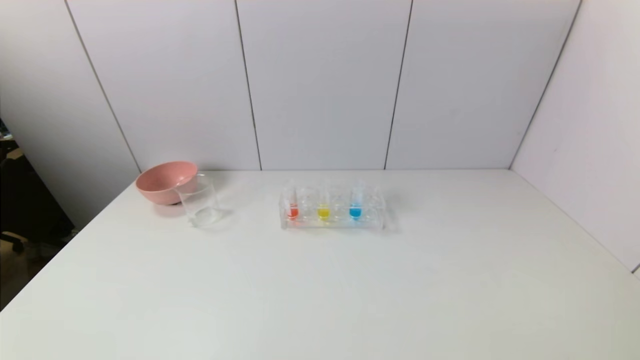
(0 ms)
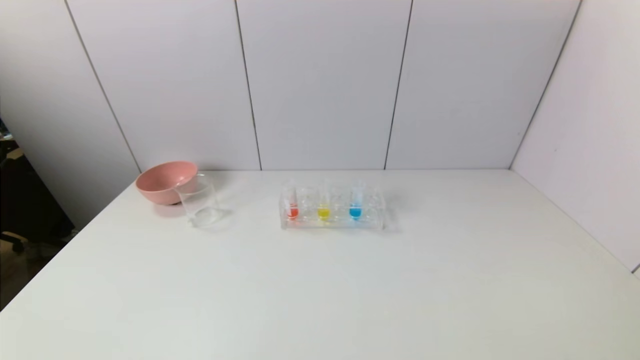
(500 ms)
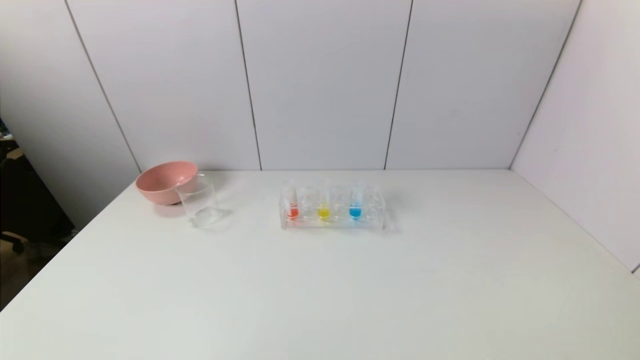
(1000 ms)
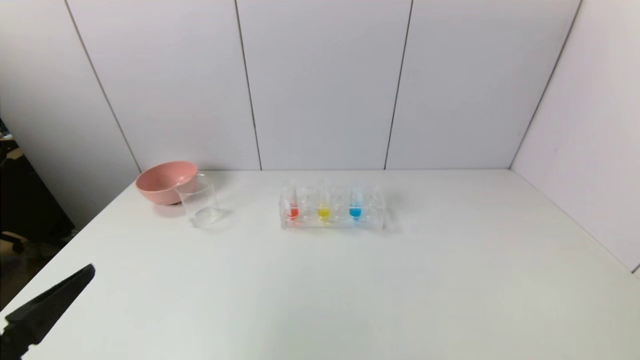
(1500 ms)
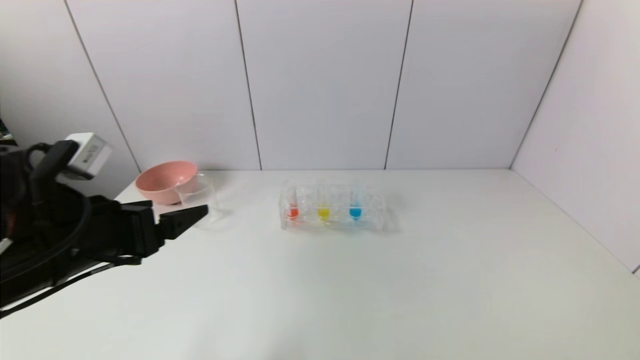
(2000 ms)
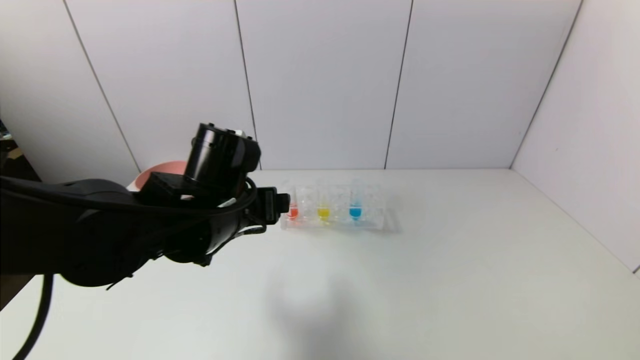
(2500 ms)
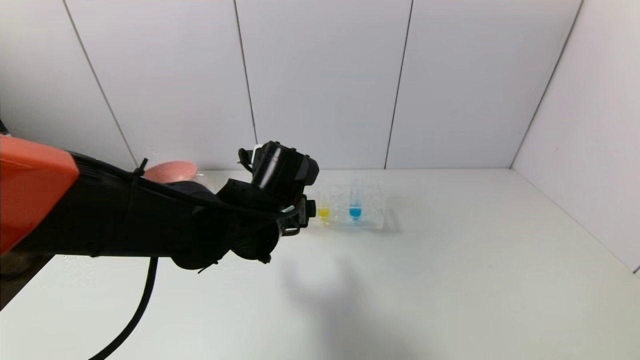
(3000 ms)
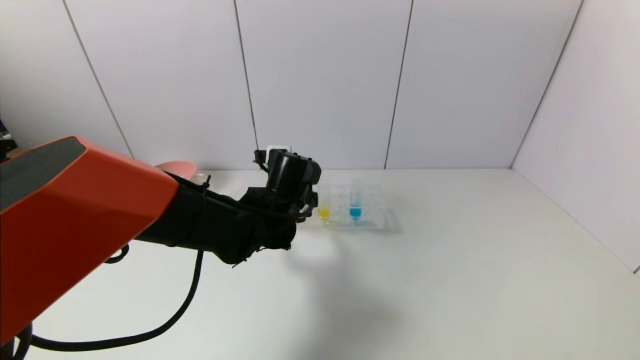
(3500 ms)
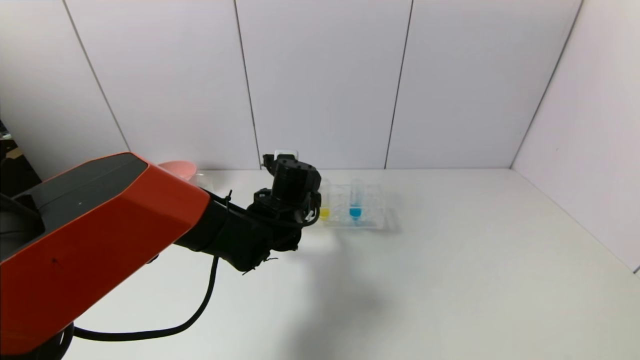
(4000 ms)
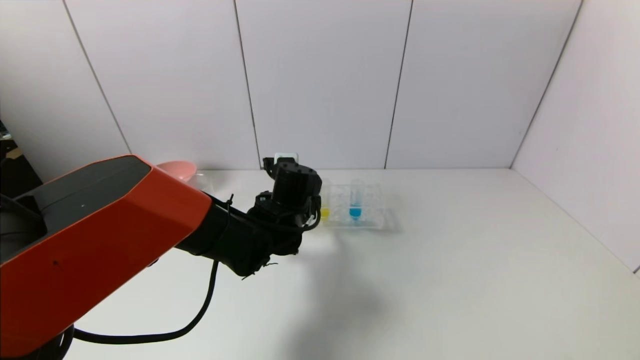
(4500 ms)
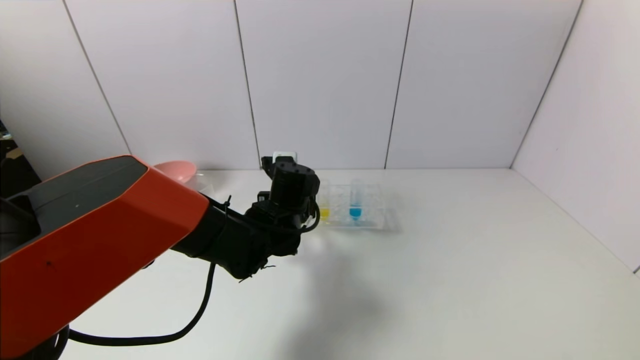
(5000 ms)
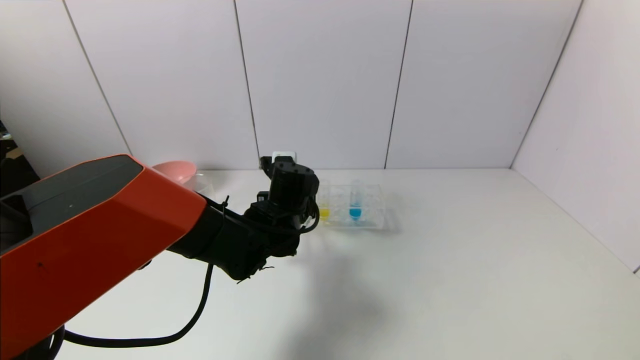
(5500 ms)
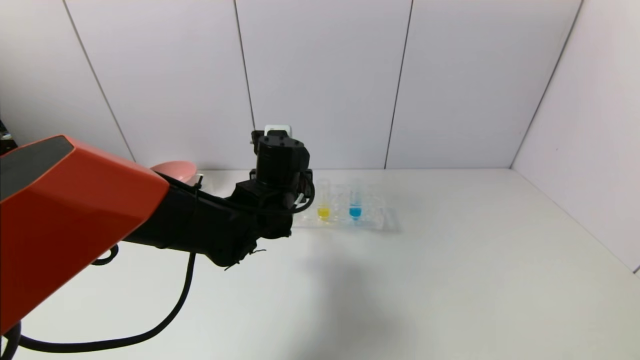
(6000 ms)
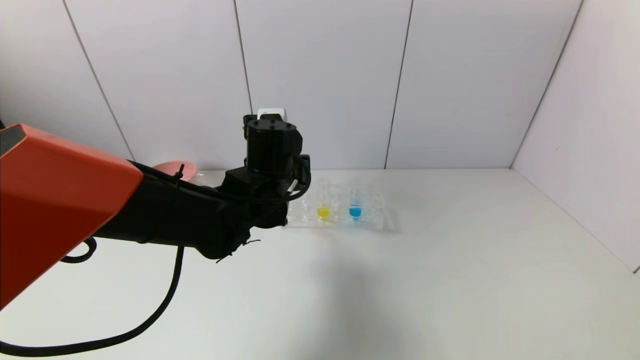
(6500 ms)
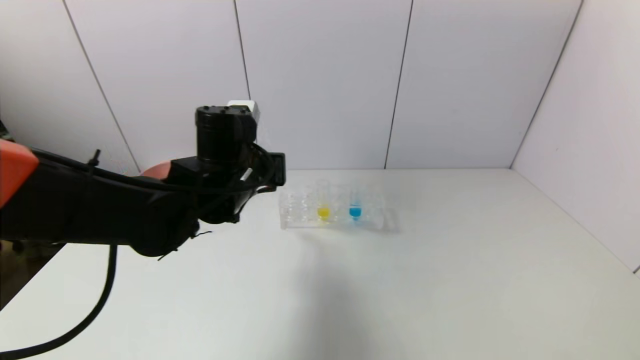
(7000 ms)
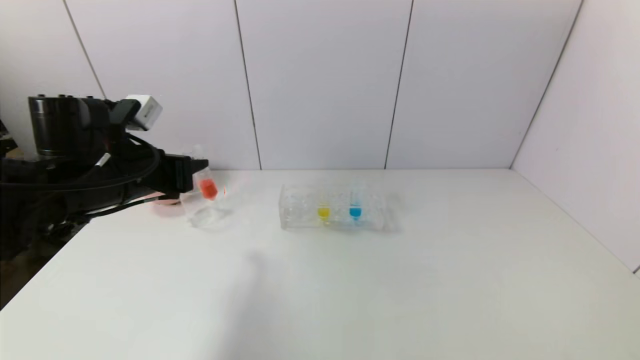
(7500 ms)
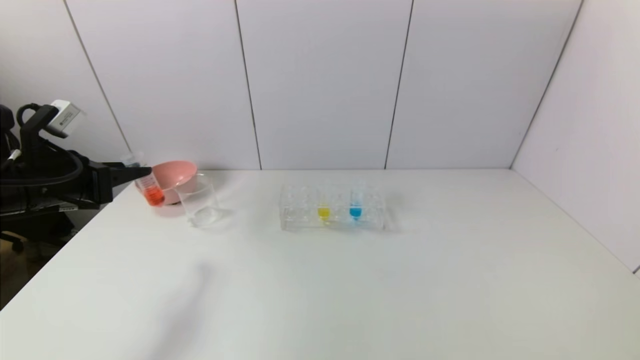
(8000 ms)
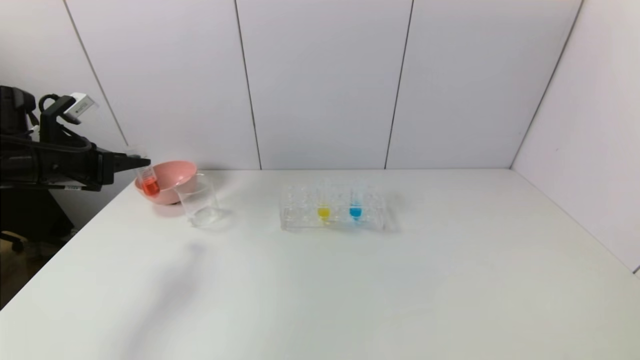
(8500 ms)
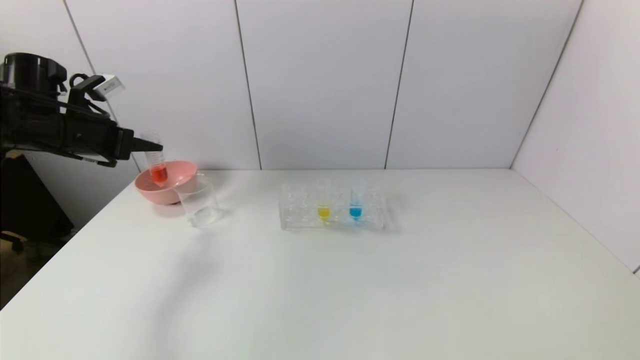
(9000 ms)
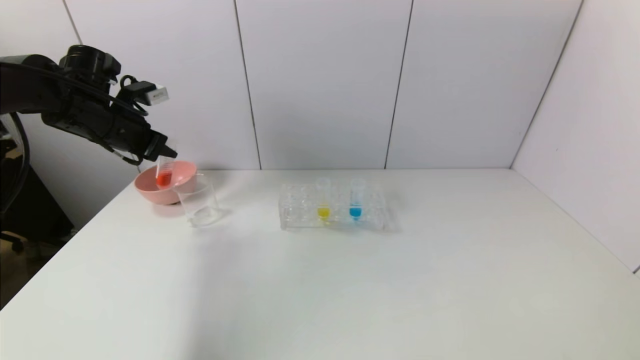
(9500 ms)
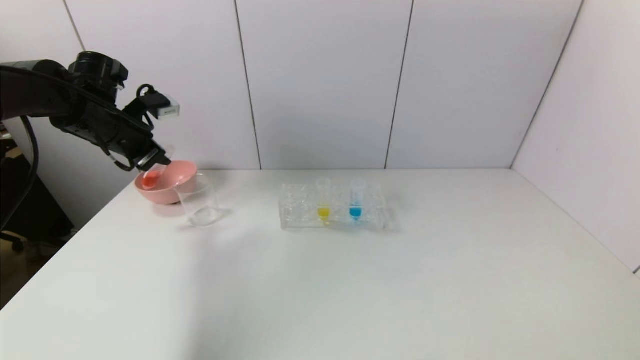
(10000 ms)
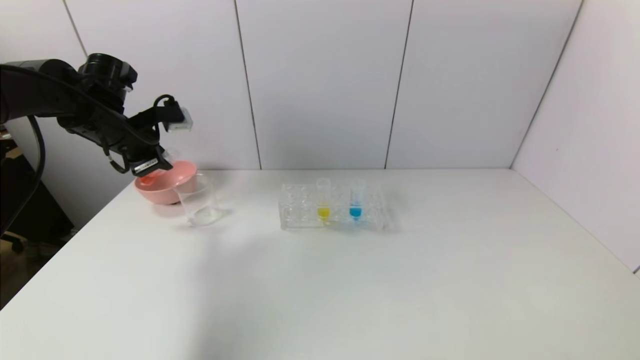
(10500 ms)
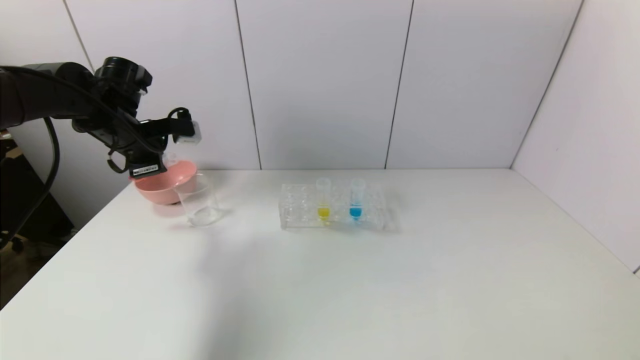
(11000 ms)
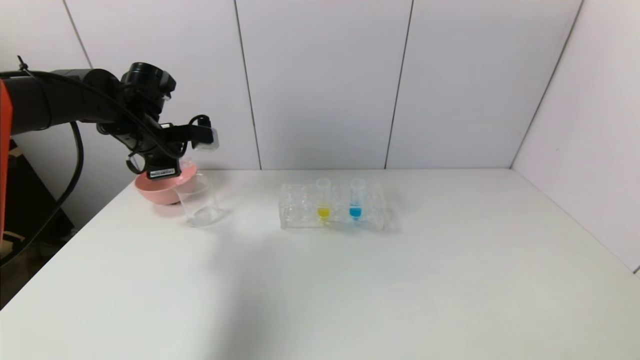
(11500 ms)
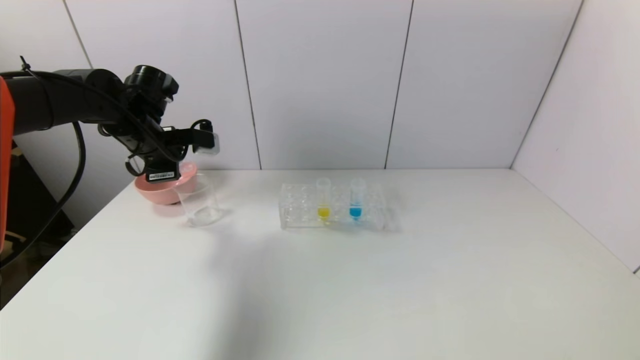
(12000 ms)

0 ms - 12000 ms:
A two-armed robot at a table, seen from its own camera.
Task of the whole recording: pick up the test tube with red pigment and the test tube with blue pigment by grippers and pour them into the container.
Step, 0 ms - 5000 ms: Grasp the red reagent with the left gripper.
0 ms - 2000 ms: The left gripper shifts about 25 cm forward and upward.
2000 ms - 4000 ms: The left gripper is displaced to the right, forward and downward by about 25 cm.
4000 ms - 6000 ms: The left gripper closes its fingers.
6000 ms - 8000 ms: The left gripper moves to the left, approximately 30 cm.
8000 ms - 10000 ms: The left gripper moves forward, about 15 cm.
10000 ms - 12000 ms: The left gripper is displaced to the right by some 5 cm.

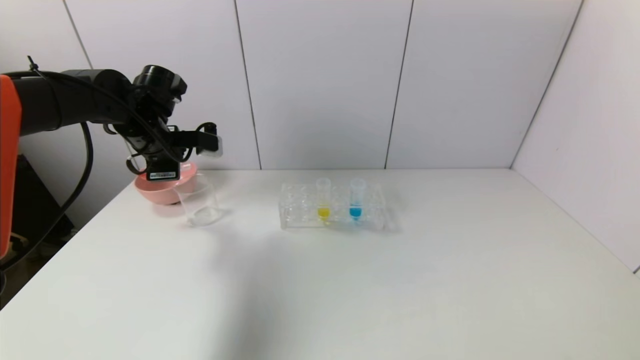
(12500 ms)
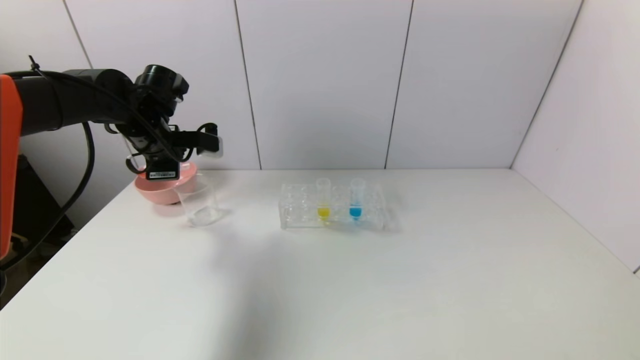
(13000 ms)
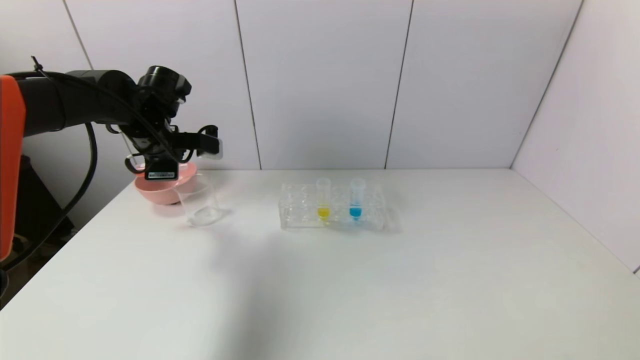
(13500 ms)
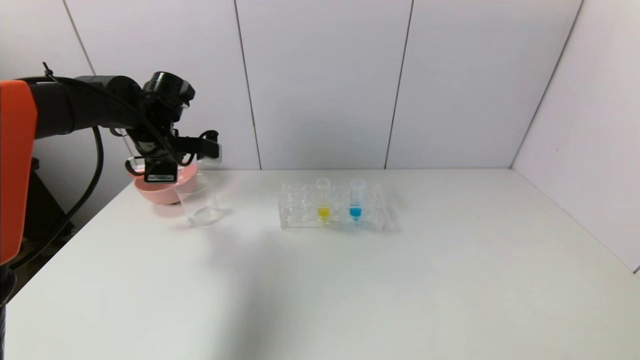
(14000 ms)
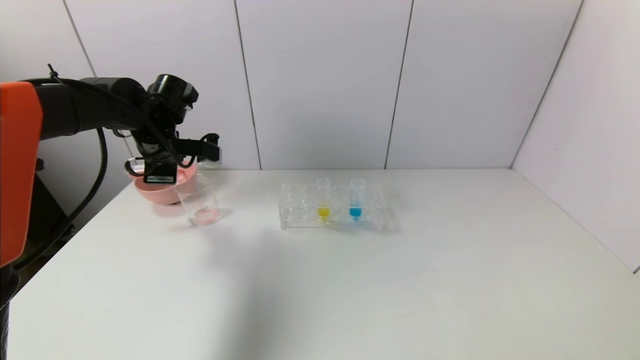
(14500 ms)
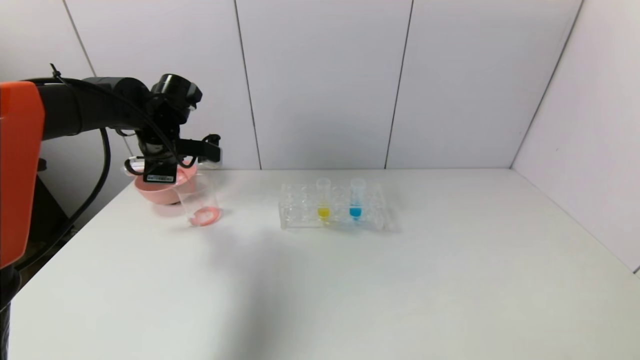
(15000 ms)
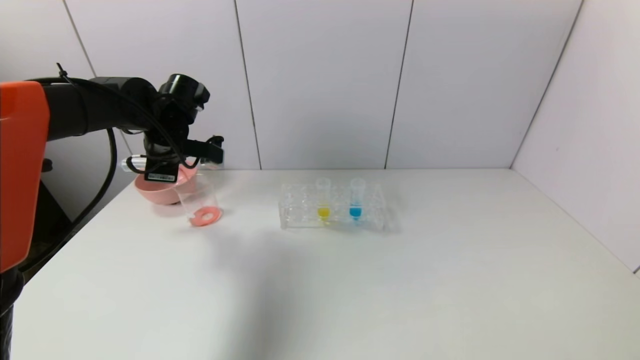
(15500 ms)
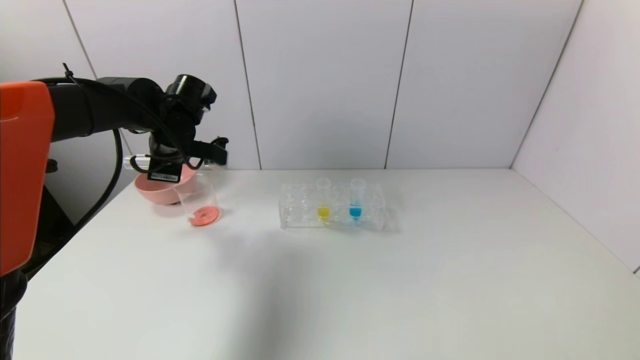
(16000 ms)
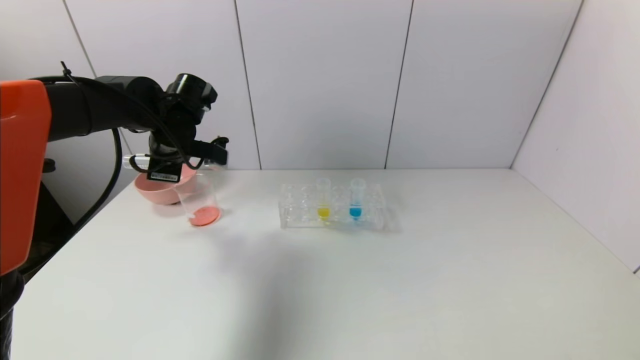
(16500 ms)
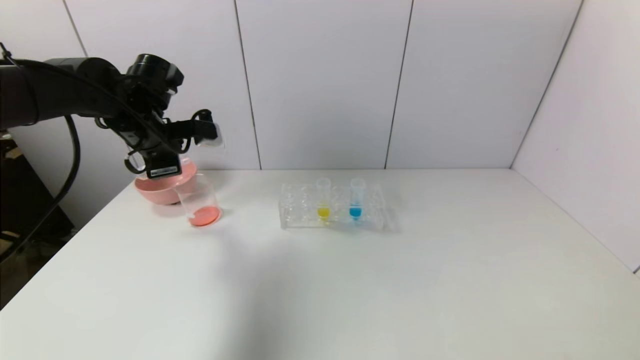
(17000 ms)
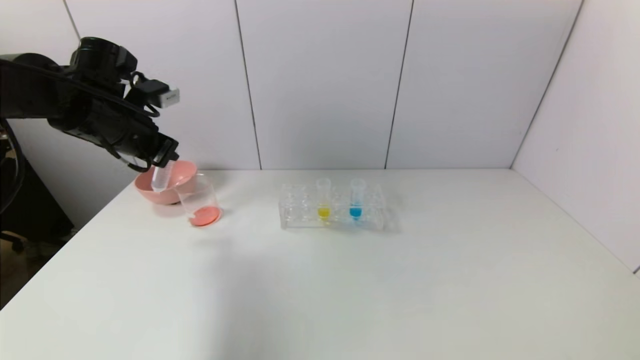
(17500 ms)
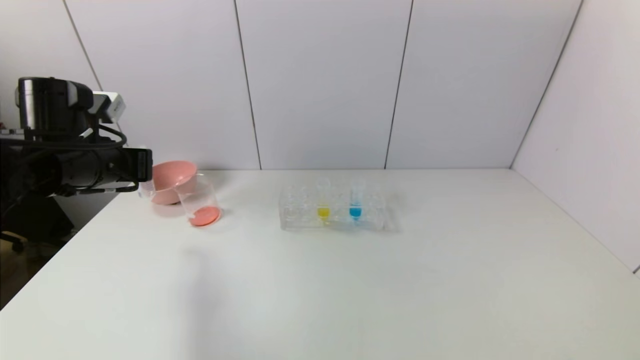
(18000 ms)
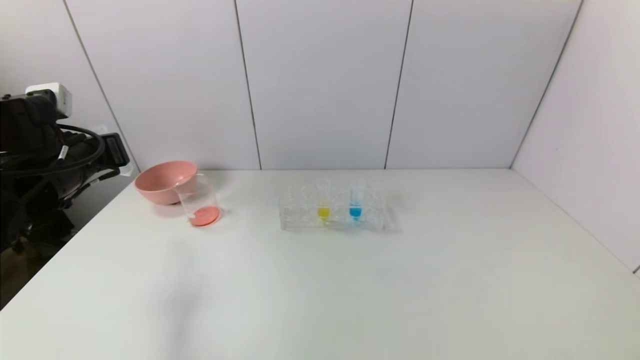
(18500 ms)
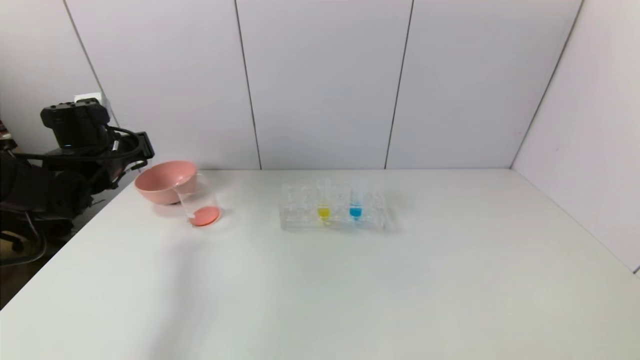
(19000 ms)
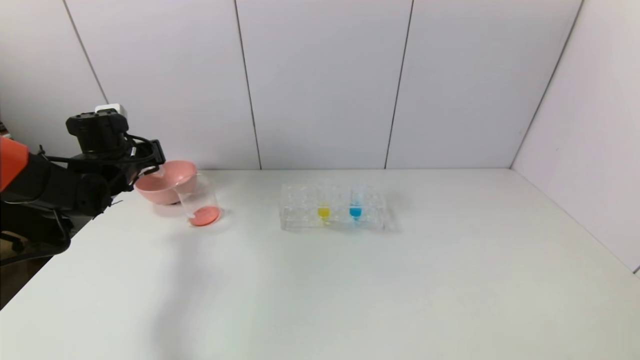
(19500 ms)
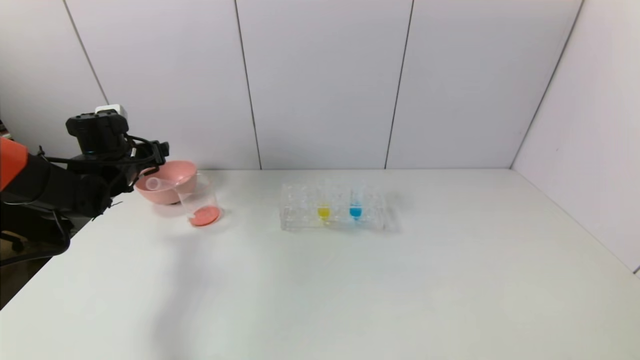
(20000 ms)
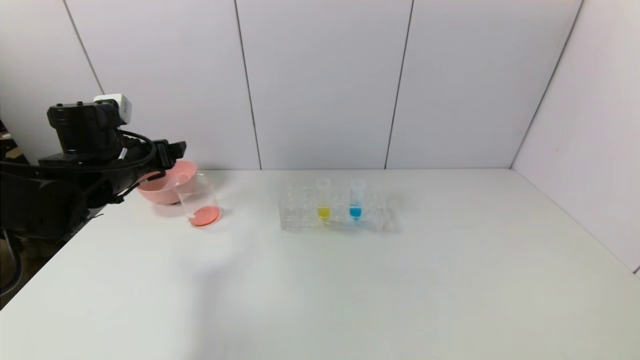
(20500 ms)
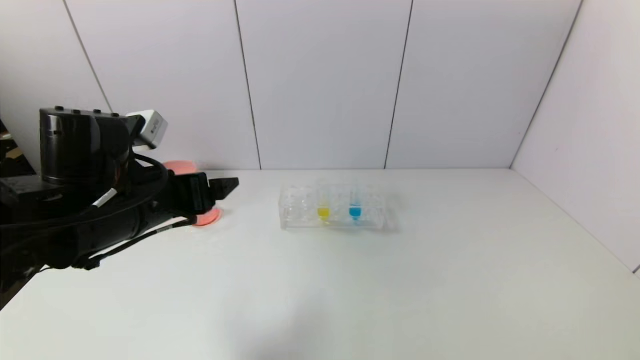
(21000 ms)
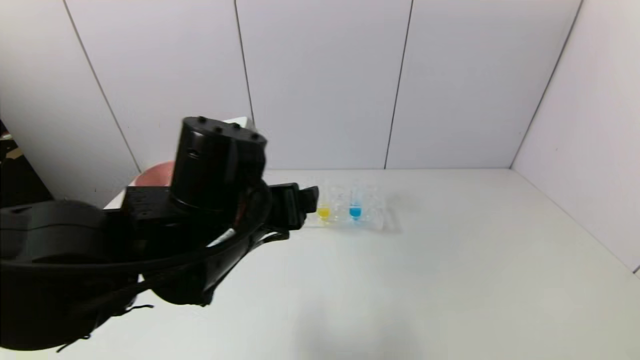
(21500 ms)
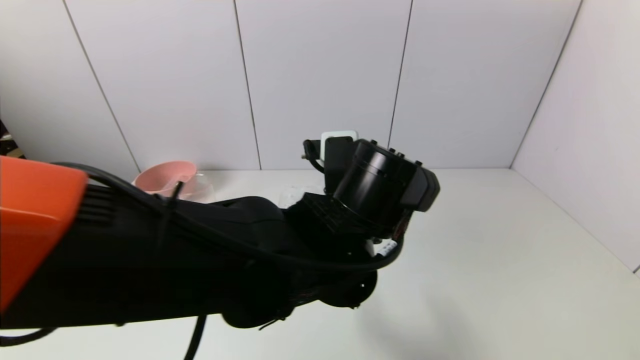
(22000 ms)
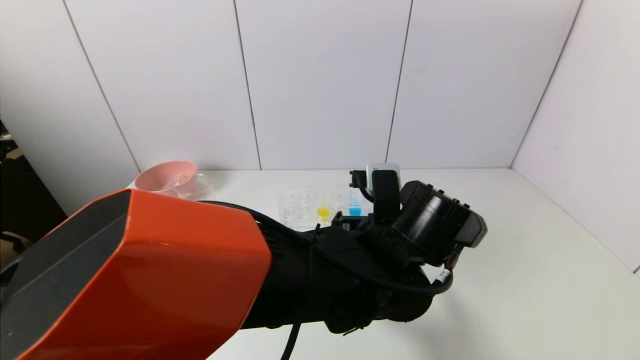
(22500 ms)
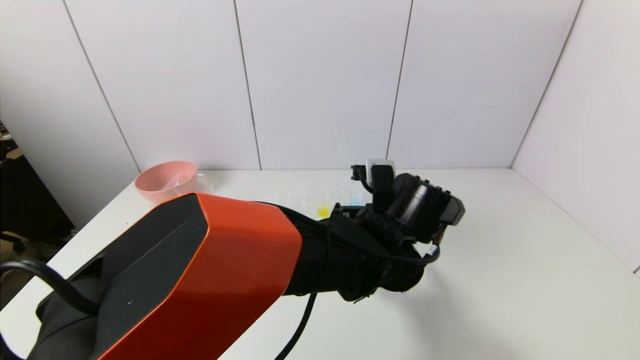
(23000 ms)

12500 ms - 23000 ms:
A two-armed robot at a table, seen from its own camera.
Task of the whole recording: pick up the test tube with red pigment and the test tube with blue pigment by grippers and pour them into the container.
Step, 12500 ms - 16500 ms: Pour the red reagent into the graduated cylinder with the left gripper.
Step, 17000 ms - 19500 ms: Place the test tube into the bowl with the left gripper.
12500 ms - 14500 ms: The grippers move only a little.
14500 ms - 16500 ms: The grippers stay close to where they were, moving slightly.
16500 ms - 19000 ms: The left gripper moves to the left, some 10 cm.
19000 ms - 21000 ms: The left gripper goes approximately 20 cm backward and to the right, and opens its fingers.
21000 ms - 23000 ms: The left gripper shifts some 30 cm to the right.
